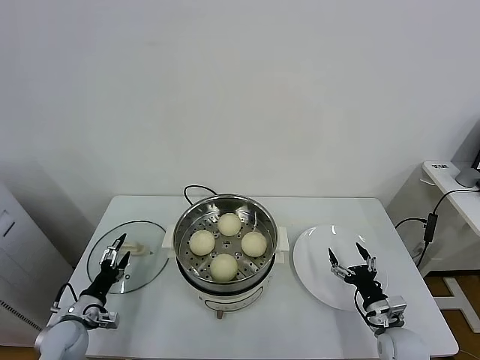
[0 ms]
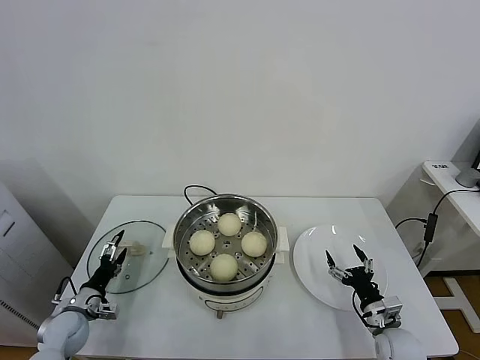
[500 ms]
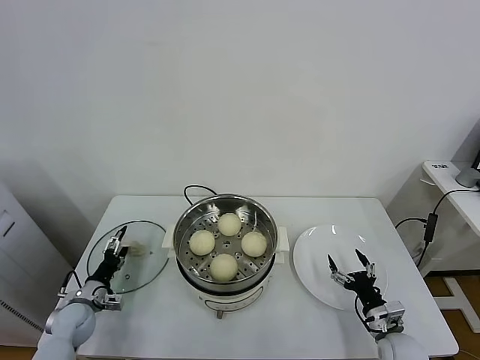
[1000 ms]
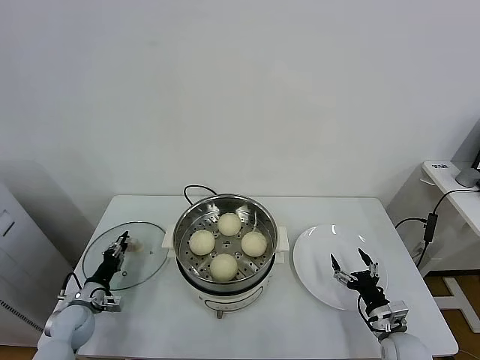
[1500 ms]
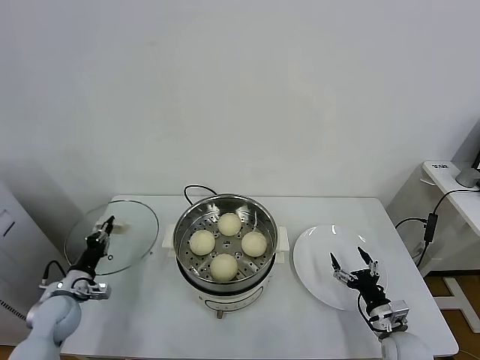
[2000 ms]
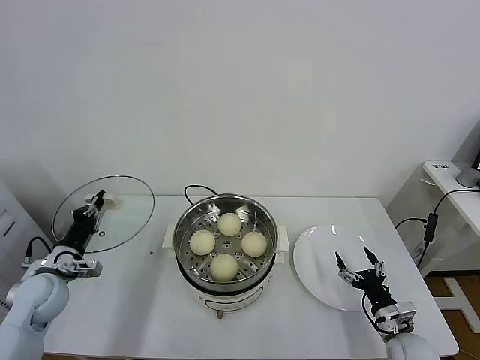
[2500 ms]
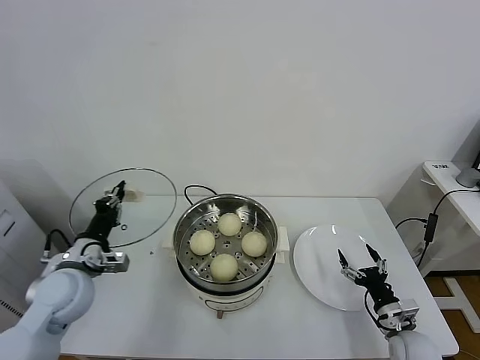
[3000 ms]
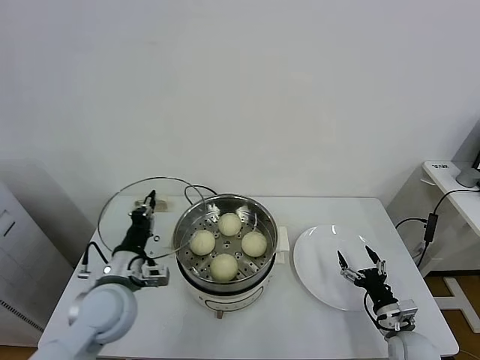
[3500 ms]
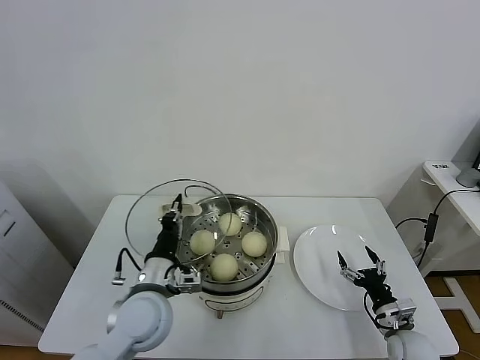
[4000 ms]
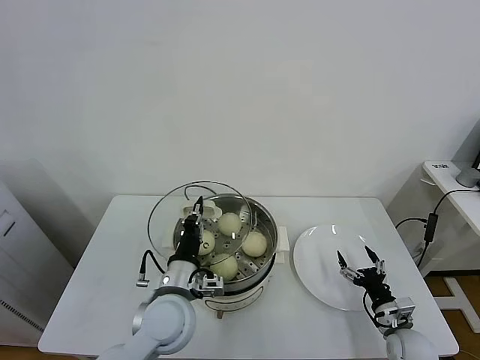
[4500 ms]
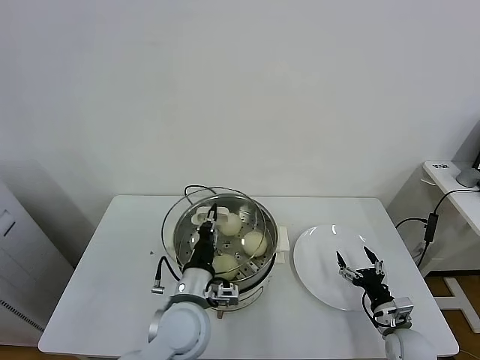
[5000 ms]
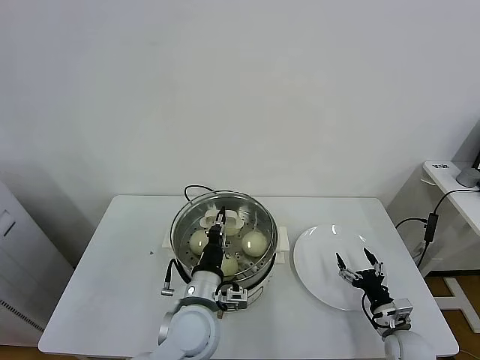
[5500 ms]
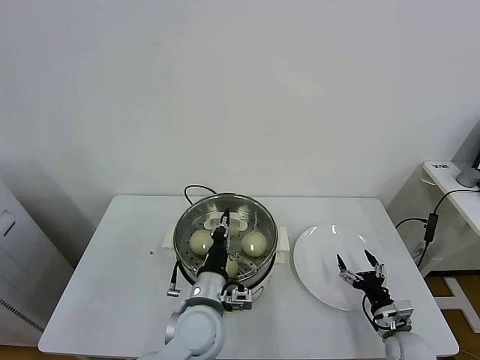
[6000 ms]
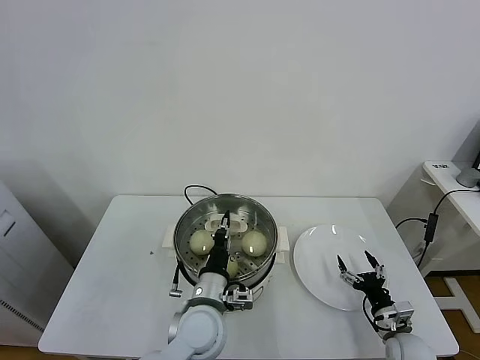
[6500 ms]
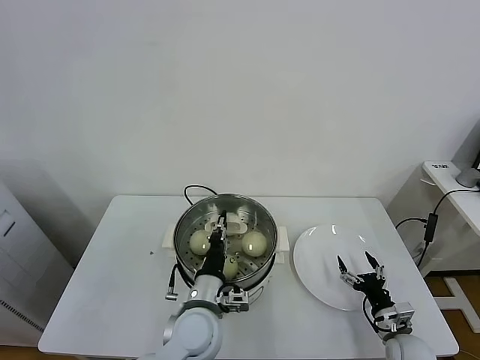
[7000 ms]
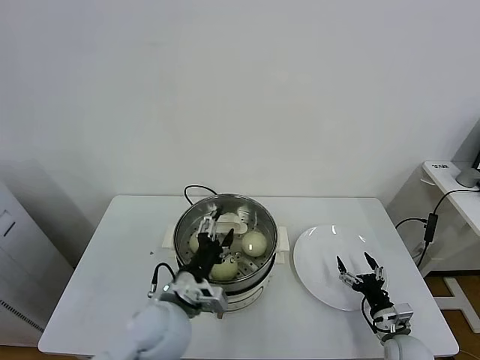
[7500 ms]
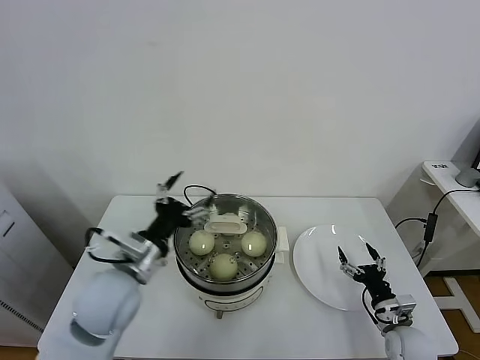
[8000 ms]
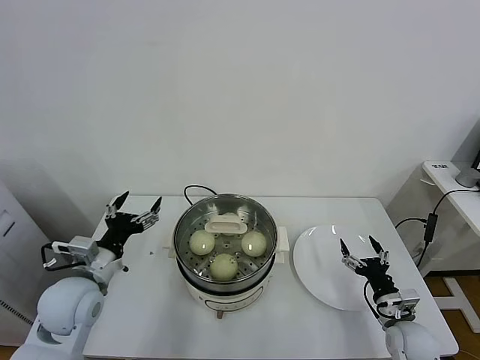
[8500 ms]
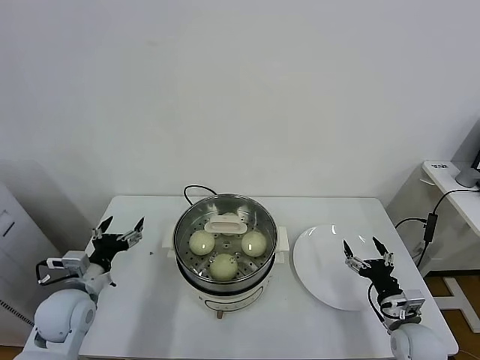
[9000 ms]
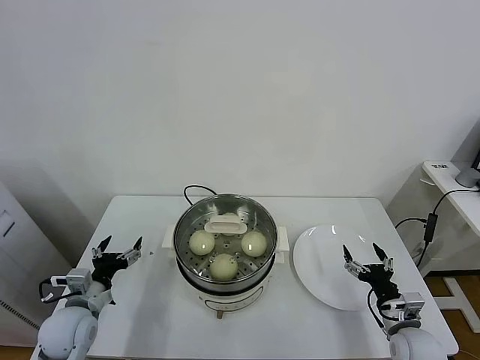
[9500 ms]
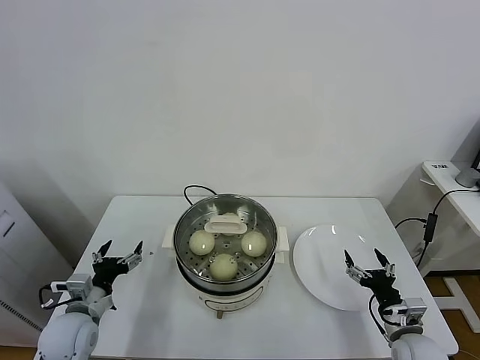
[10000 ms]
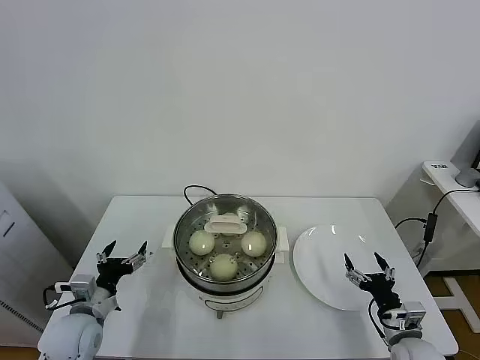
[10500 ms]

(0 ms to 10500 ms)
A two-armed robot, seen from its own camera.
Task of the whole recording: take steamed baozi put them in steamer.
Step, 2000 ms - 7500 ms: Place the pot lid on the steamer with left gripper.
0 ms - 2000 ms: The left gripper changes place by approximately 5 cm, and closes its fingers.
2000 ms - 4000 ms: The left gripper travels to the right and upward by about 30 cm.
4000 ms - 6500 ms: The left gripper shifts some 10 cm to the right.
6500 ms - 8500 ms: The left gripper is displaced to the left by roughly 20 cm, and opens up.
8500 ms - 10500 ms: The left gripper heads downward, covering some 10 cm.
